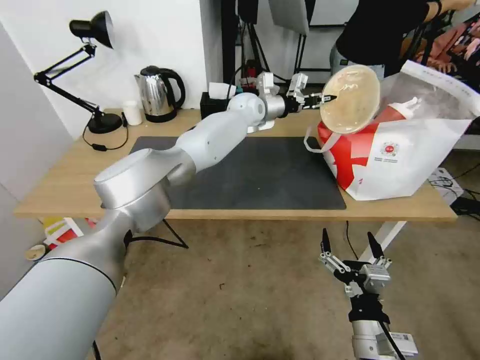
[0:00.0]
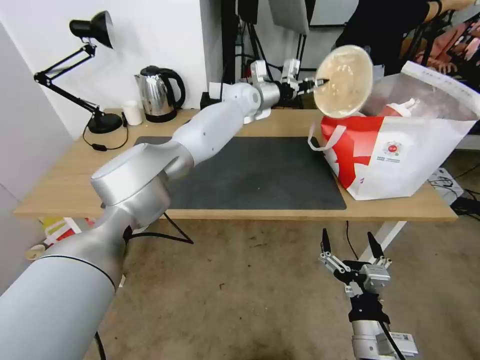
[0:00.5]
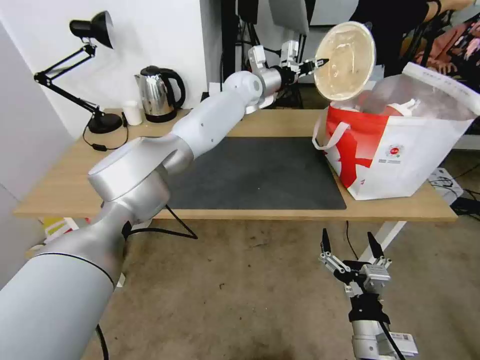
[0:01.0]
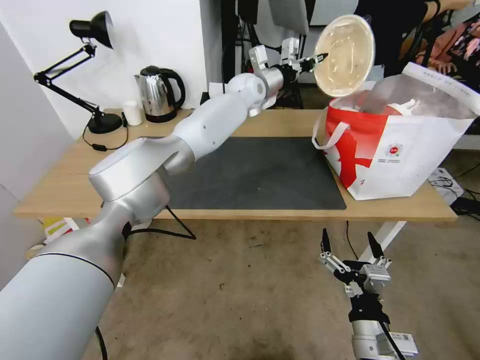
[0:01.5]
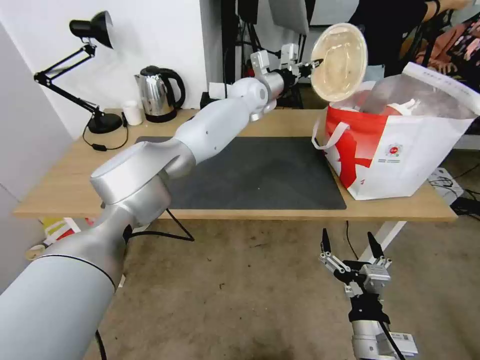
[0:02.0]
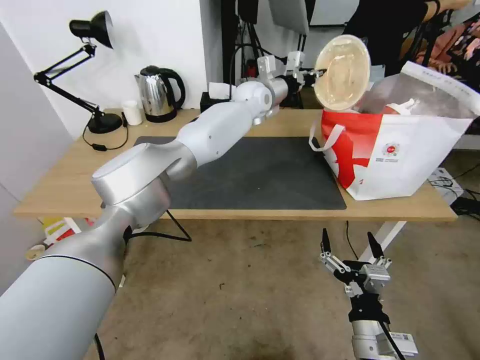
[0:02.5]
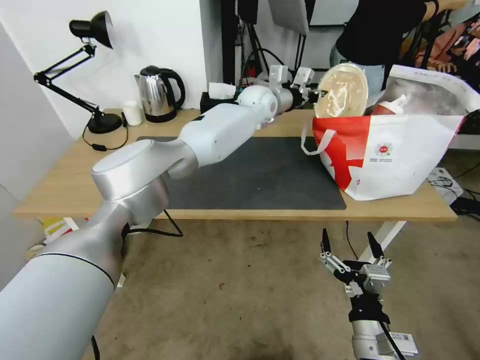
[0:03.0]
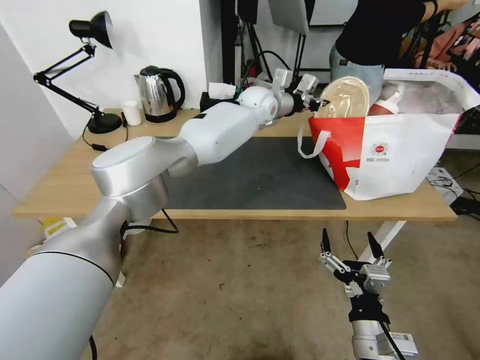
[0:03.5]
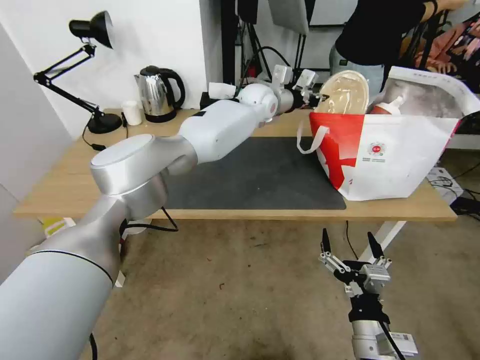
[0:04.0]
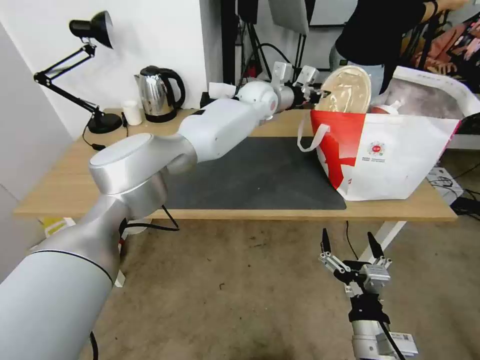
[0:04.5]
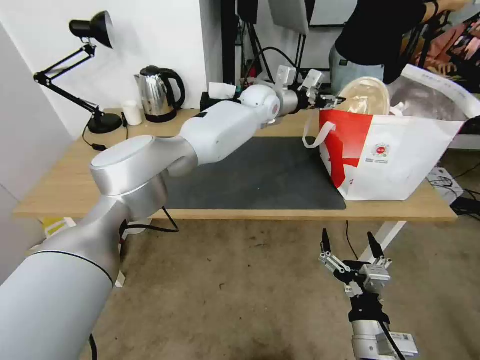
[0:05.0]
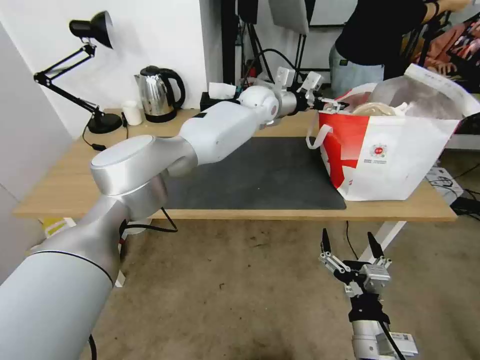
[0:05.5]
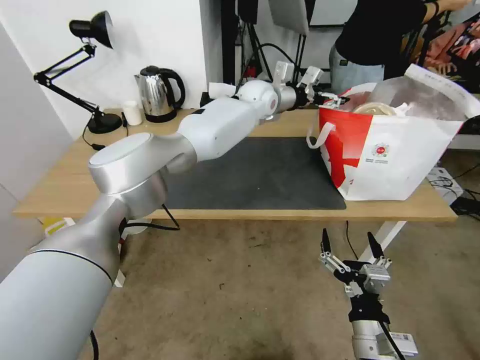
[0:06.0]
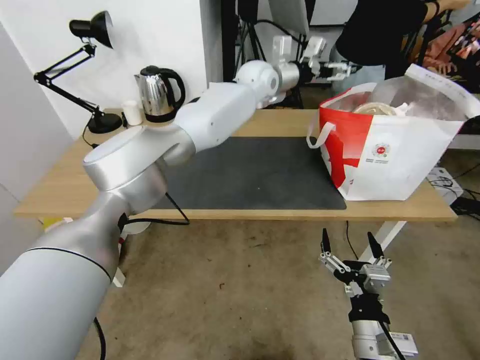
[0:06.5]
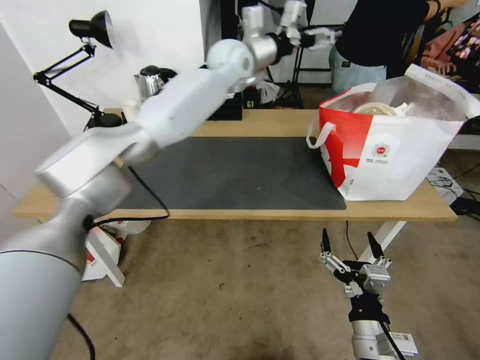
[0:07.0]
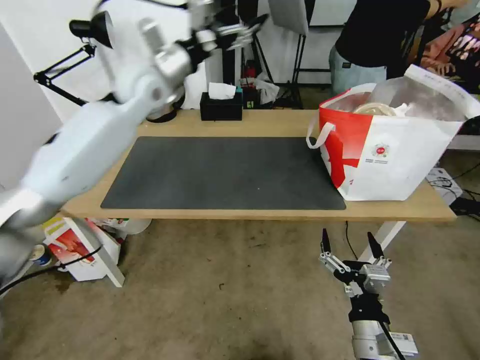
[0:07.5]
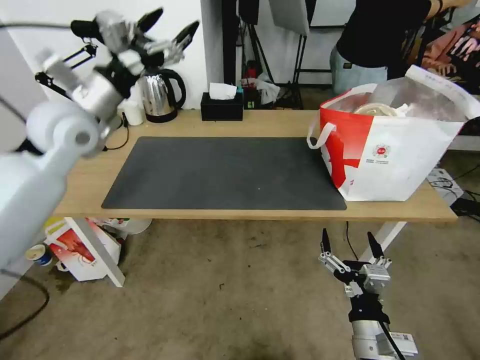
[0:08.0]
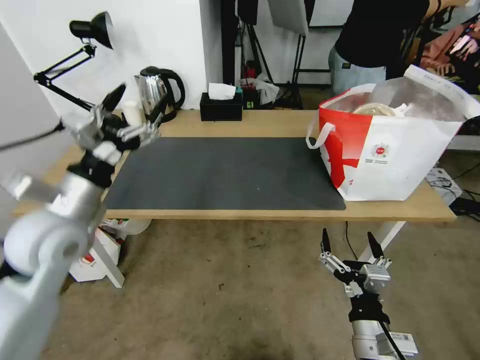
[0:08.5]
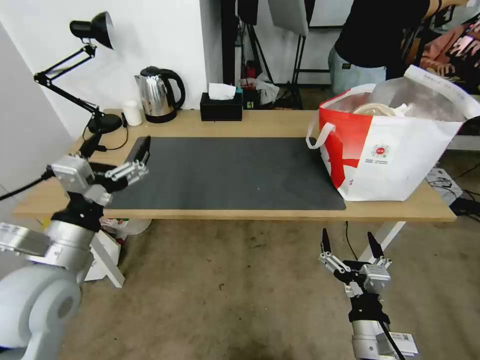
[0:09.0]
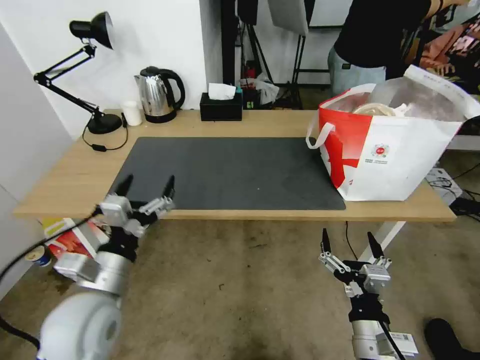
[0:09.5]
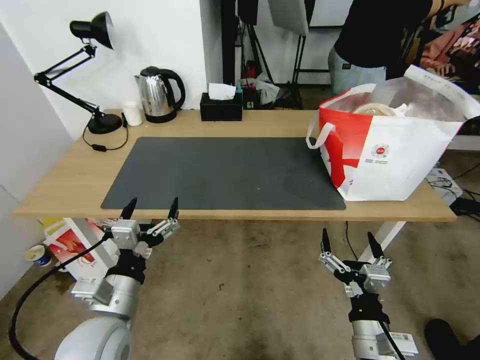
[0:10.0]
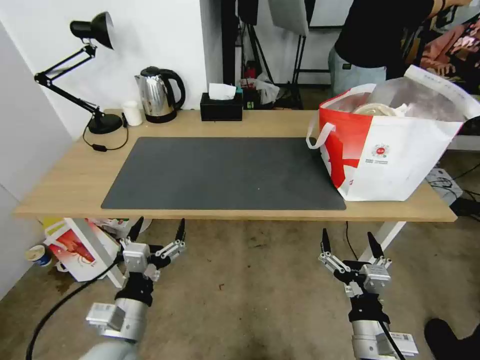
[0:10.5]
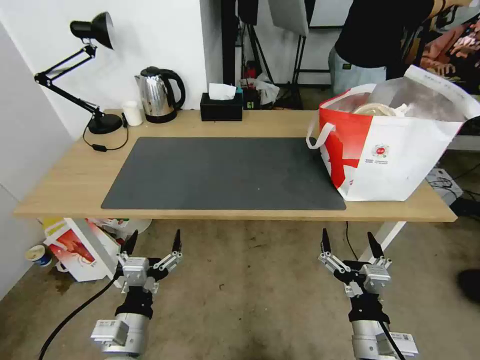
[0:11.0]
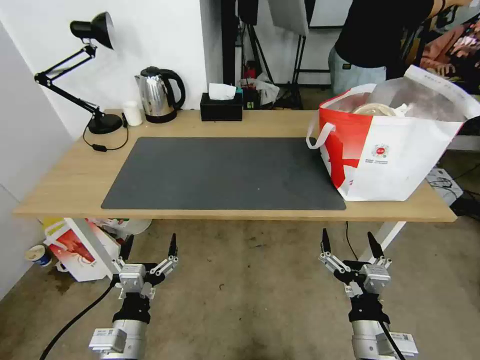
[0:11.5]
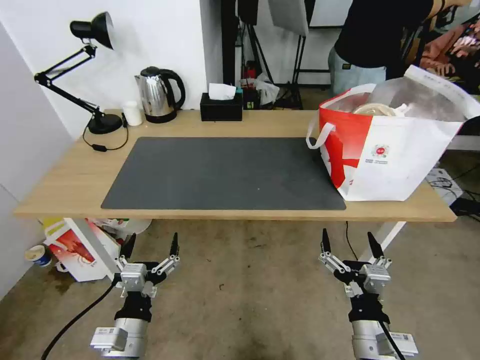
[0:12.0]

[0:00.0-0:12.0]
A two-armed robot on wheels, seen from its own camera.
Task of the whole recording: Pick up the trash from the table and place it into the takeout bag.
0:04.0 to 0:06.0: The left gripper opens up.
0:06.0 to 0:08.0: The left gripper moves to the left and backward, about 40 cm.
0:08.0 to 0:10.0: The left gripper goes approximately 35 cm backward and downward.
0:10.0 to 0:12.0: The left gripper goes roughly 10 cm downward.

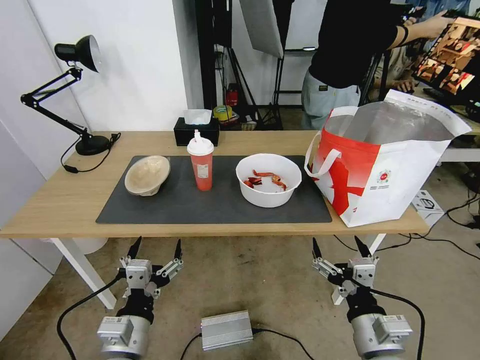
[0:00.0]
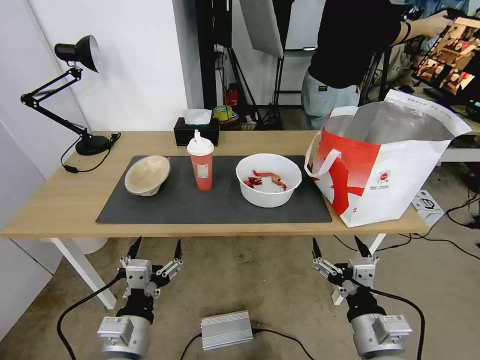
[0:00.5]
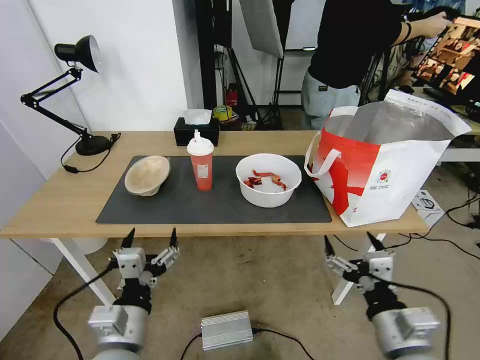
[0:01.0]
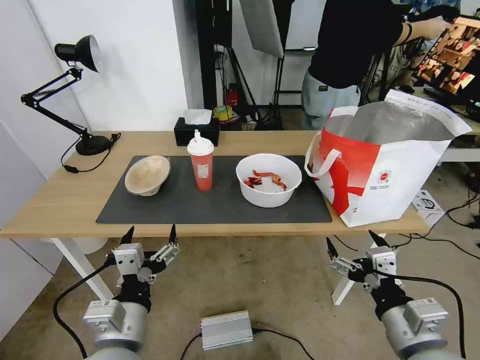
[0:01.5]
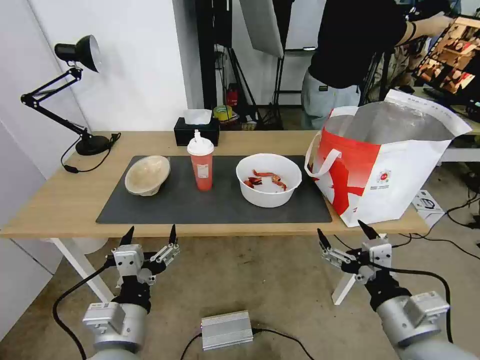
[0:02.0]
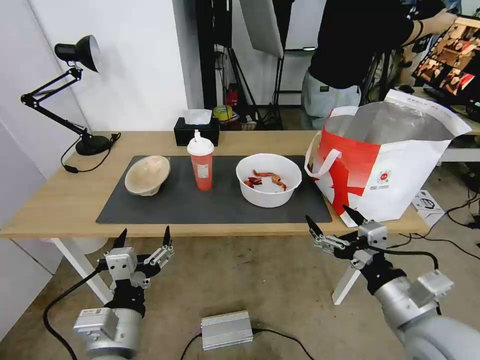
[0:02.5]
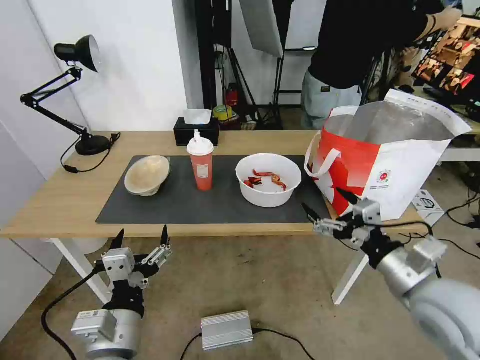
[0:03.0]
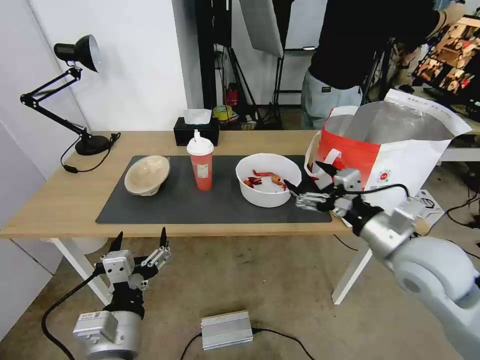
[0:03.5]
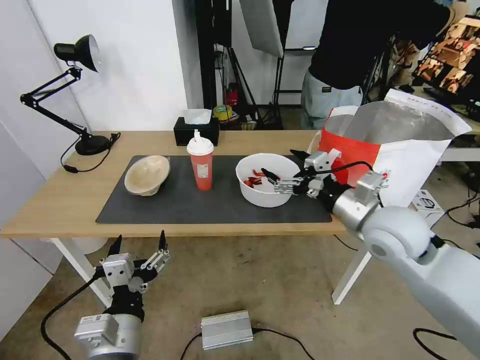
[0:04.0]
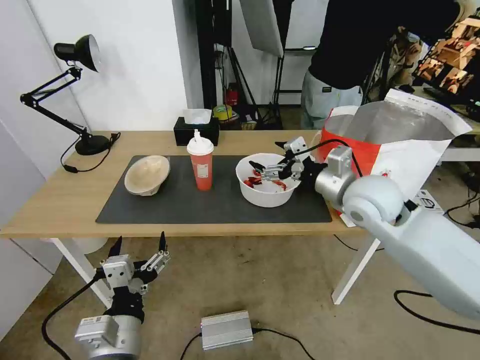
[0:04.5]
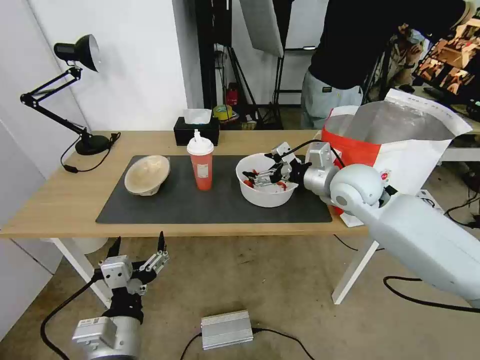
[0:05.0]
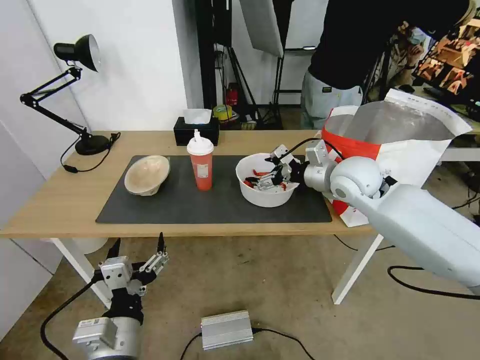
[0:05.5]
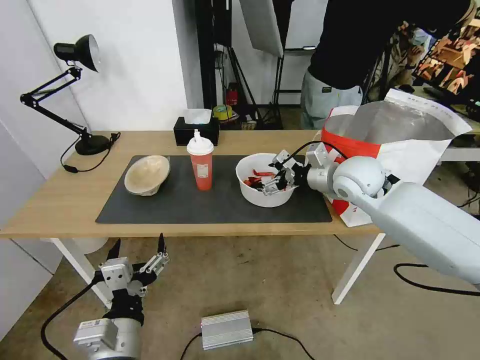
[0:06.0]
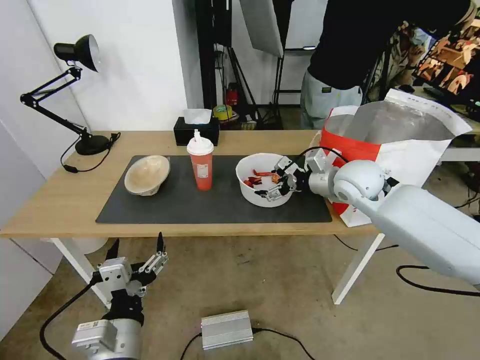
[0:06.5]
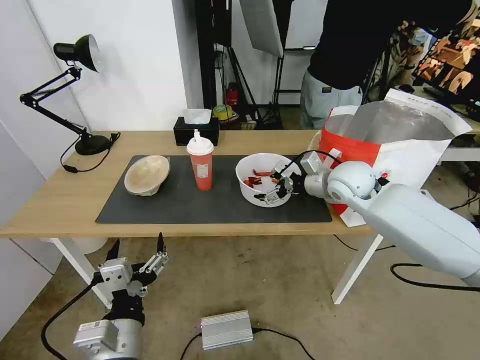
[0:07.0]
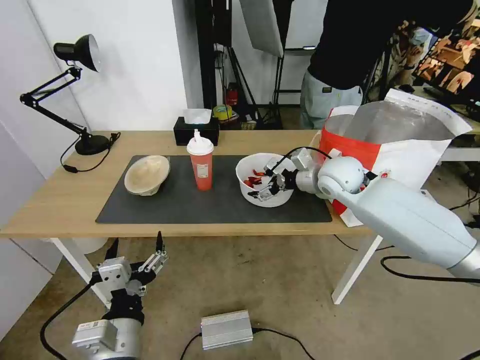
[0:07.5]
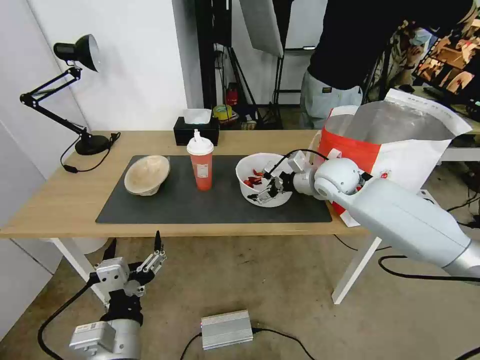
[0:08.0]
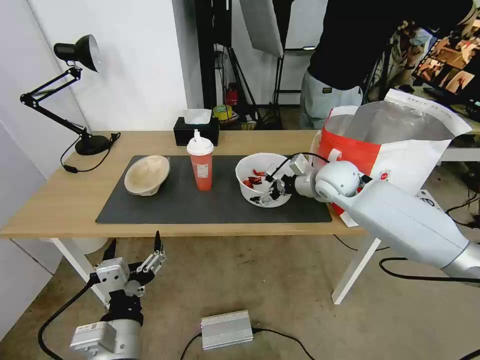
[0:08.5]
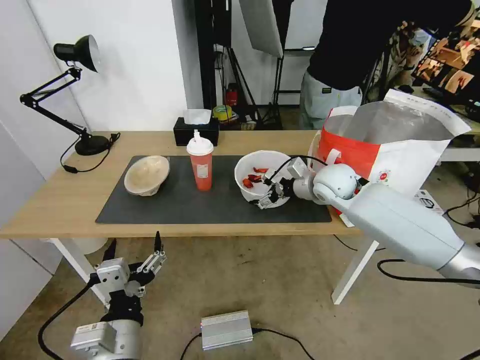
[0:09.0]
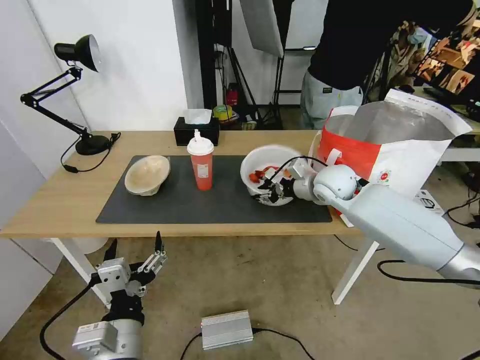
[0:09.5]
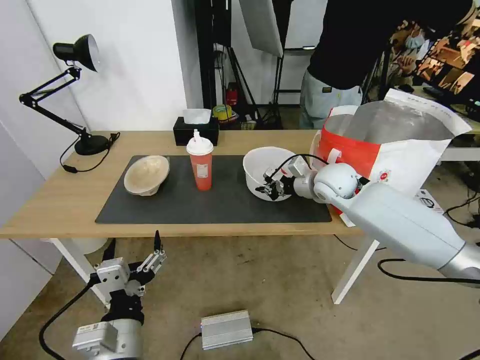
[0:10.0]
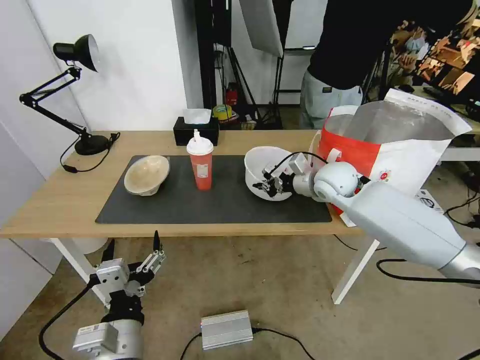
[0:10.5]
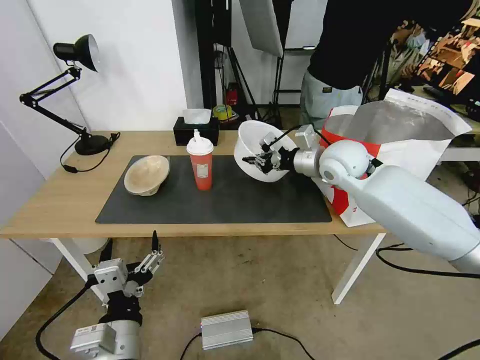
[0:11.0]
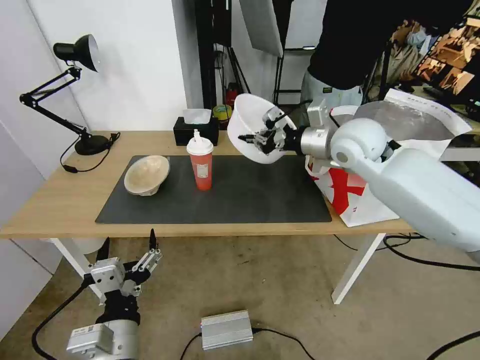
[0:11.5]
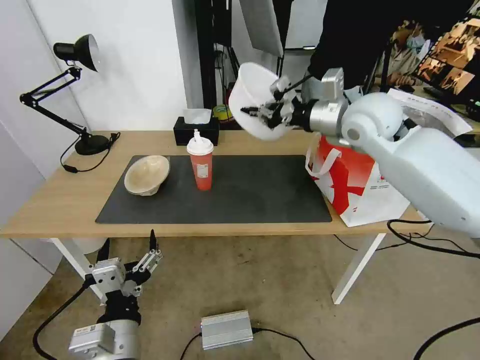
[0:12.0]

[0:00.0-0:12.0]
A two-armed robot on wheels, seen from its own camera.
Task of the whole recording: Pick up the trash from the table and place it into the takeout bag.
0:02.0 to 0:04.0: The right gripper moves forward and upward, approximately 20 cm.
0:04.0 to 0:06.0: The right gripper shifts approximately 15 cm forward.
0:06.0 to 0:08.0: The right gripper shifts by approximately 5 cm.
0:08.0 to 0:10.0: The right gripper closes its fingers.
0:10.0 to 0:12.0: The right gripper travels upward by roughly 20 cm.

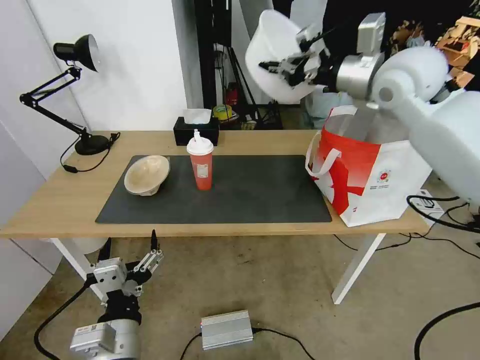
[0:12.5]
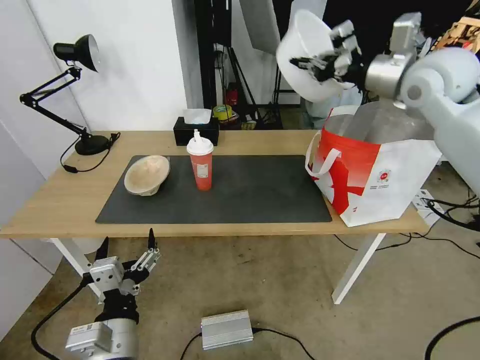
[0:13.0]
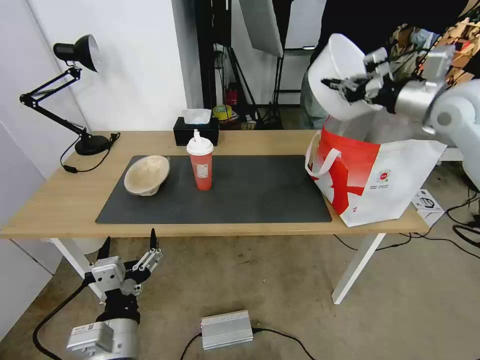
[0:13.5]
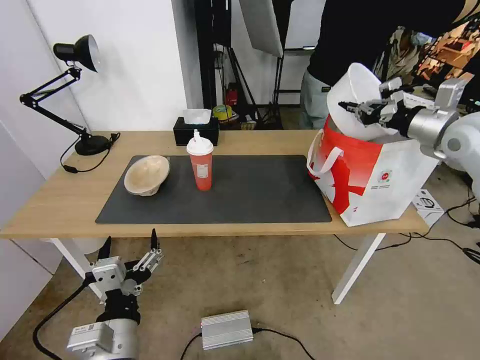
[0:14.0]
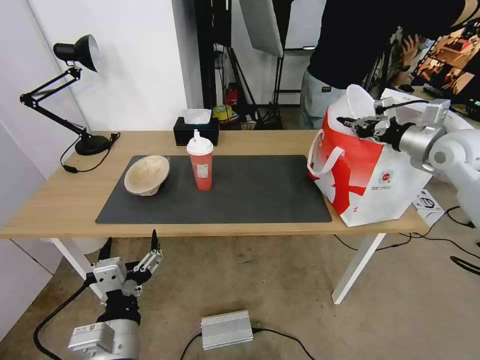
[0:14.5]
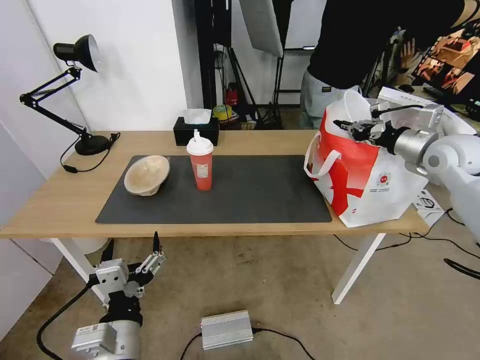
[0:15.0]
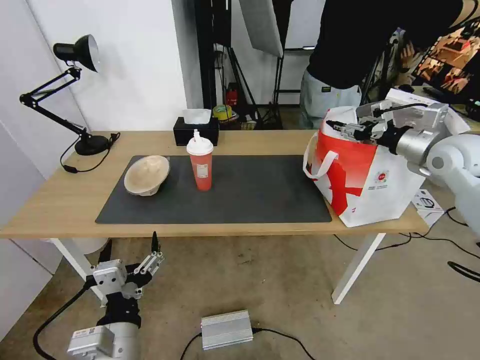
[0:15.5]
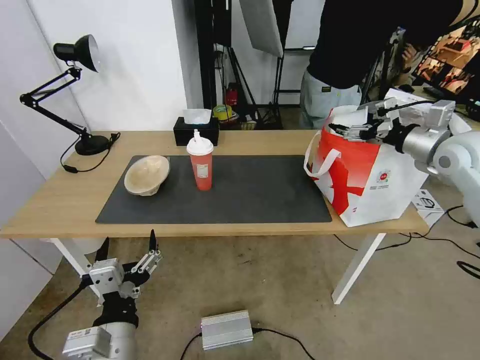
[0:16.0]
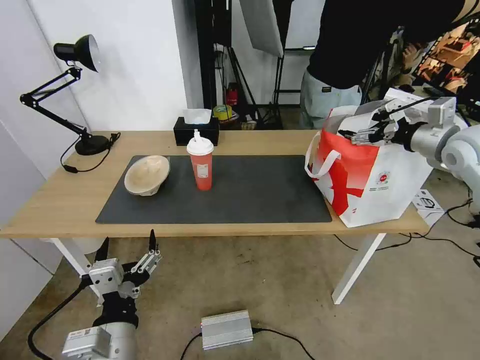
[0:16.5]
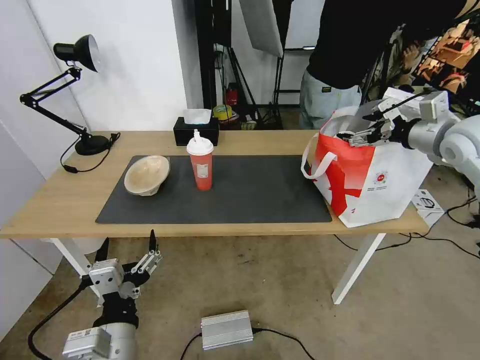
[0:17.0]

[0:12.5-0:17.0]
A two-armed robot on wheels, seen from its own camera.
Task of the whole recording: Pick up the trash from the table and place it into the takeout bag.
0:12.5 to 0:14.5: The right gripper is displaced to the right and downward by roughly 20 cm.
0:14.5 to 0:17.0: The right gripper changes place by roughly 5 cm, and opens up.
